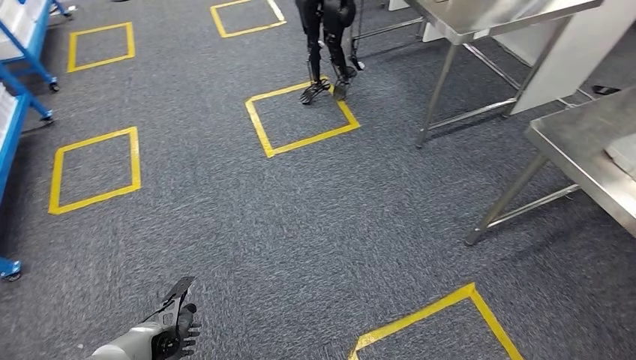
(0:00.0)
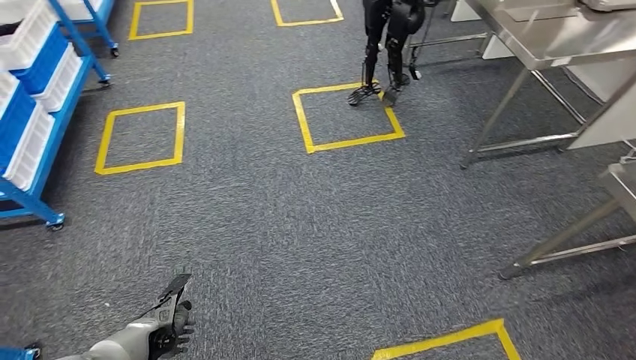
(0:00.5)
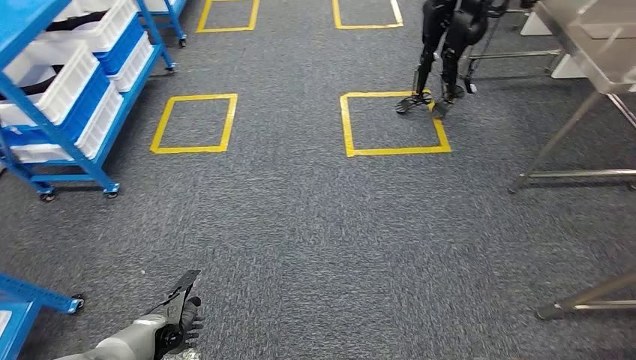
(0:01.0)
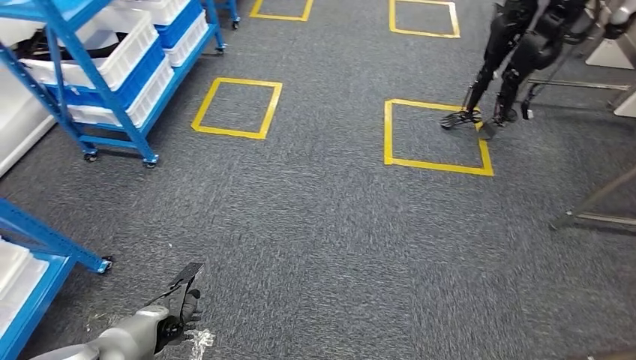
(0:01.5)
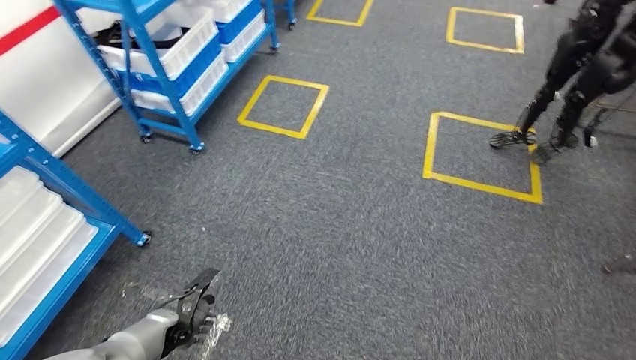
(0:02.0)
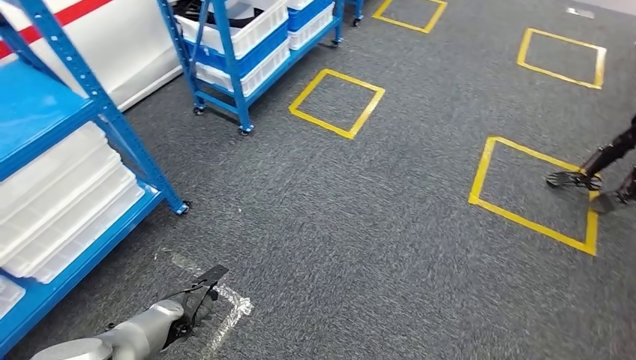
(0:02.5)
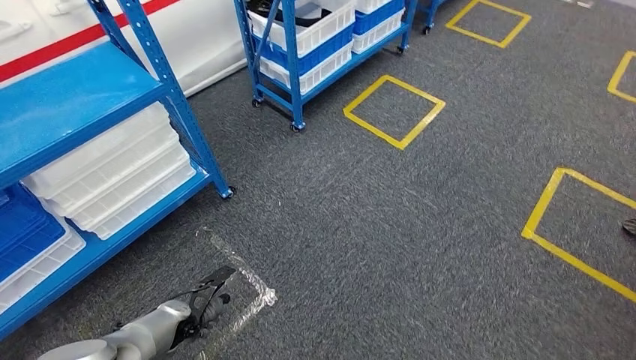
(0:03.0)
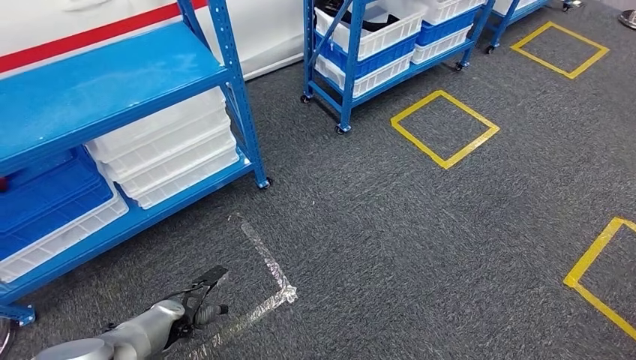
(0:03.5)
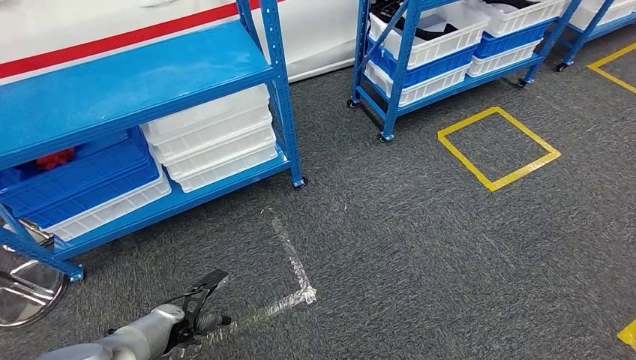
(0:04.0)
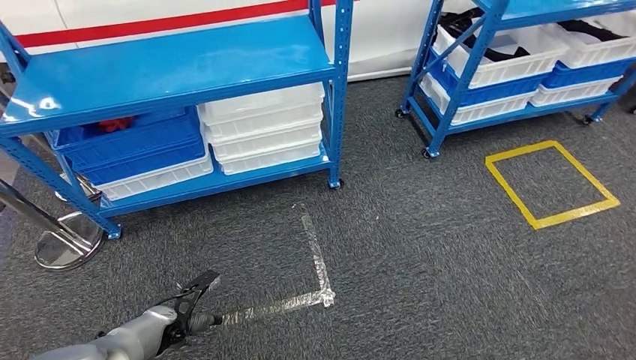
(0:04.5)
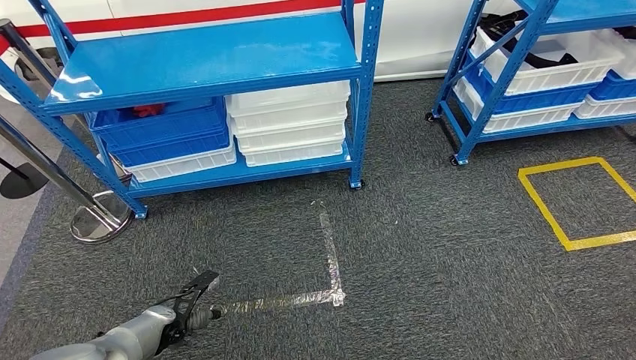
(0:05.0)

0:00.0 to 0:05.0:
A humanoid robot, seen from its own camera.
Step, 0:00.0 to 0:05.0: Return to the initial position at the shelf.

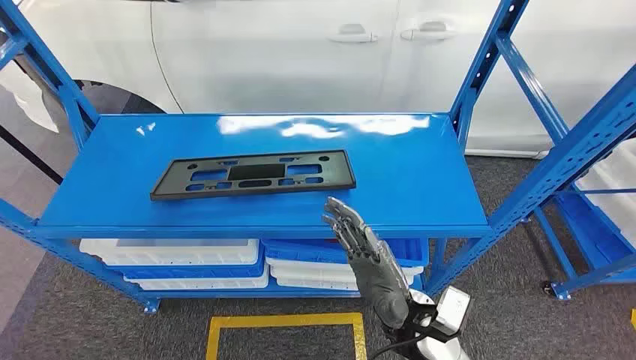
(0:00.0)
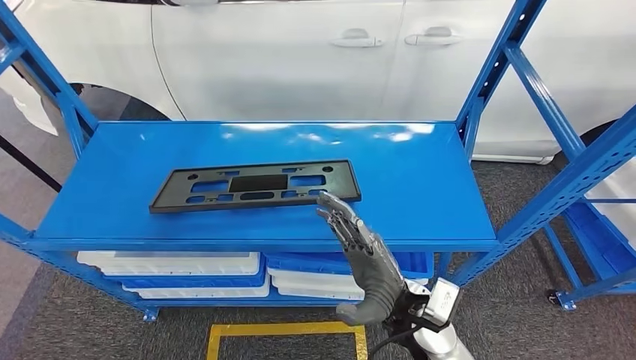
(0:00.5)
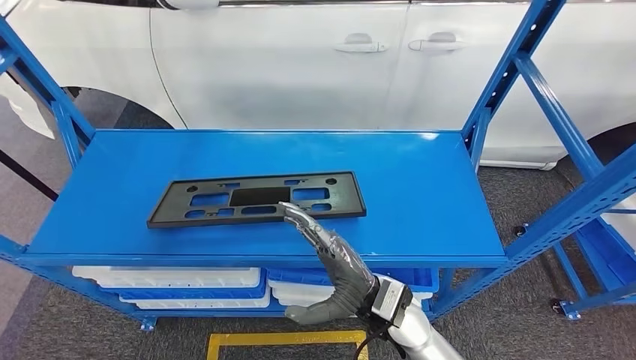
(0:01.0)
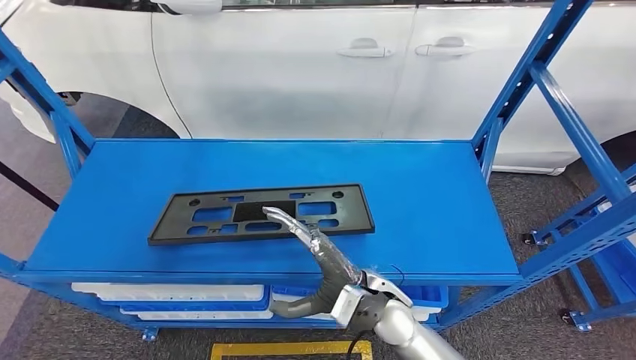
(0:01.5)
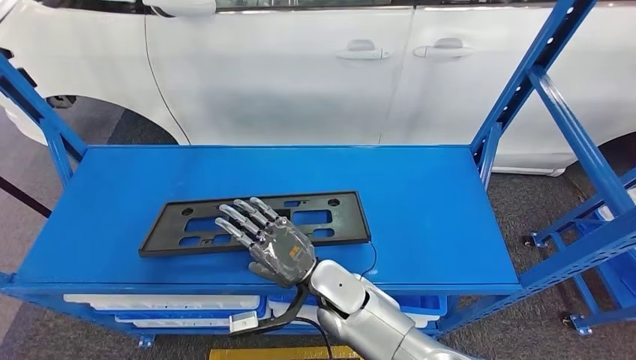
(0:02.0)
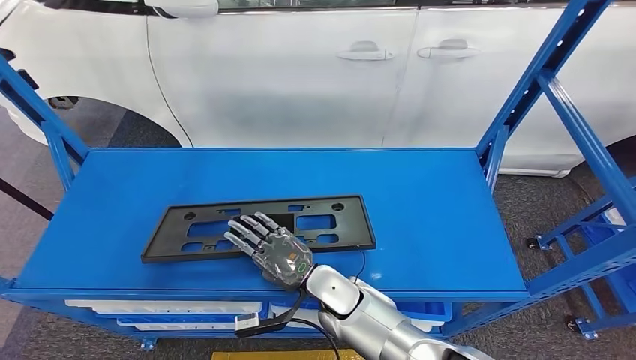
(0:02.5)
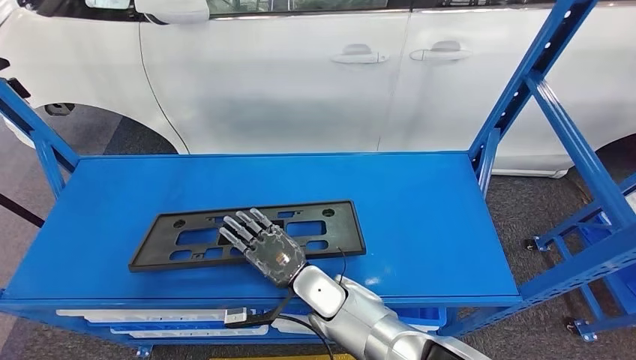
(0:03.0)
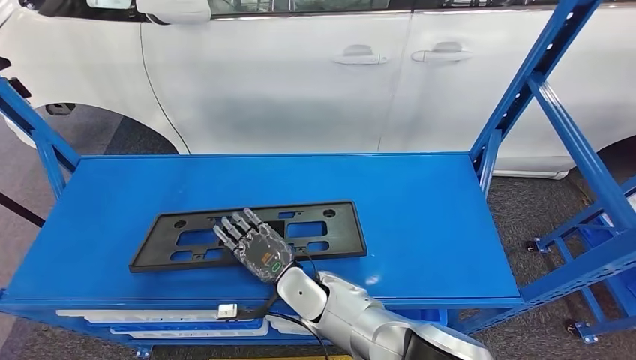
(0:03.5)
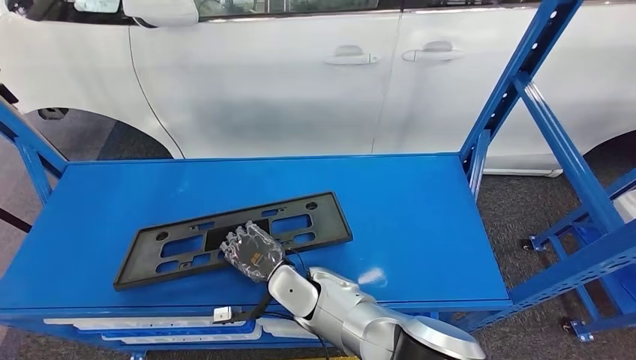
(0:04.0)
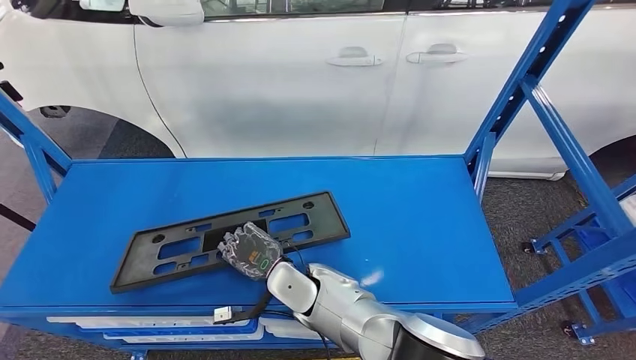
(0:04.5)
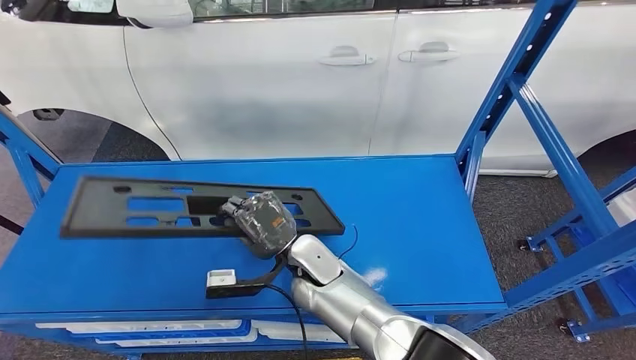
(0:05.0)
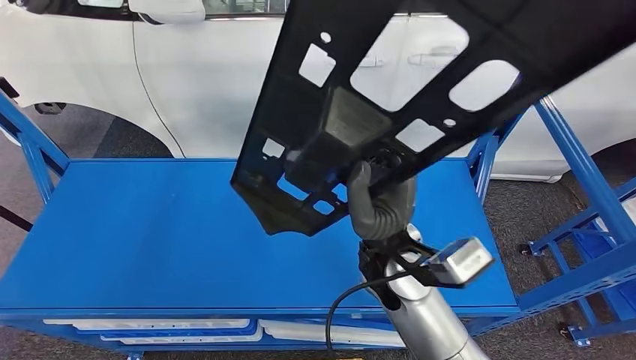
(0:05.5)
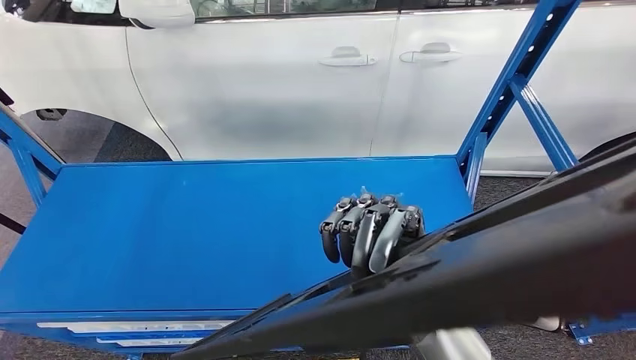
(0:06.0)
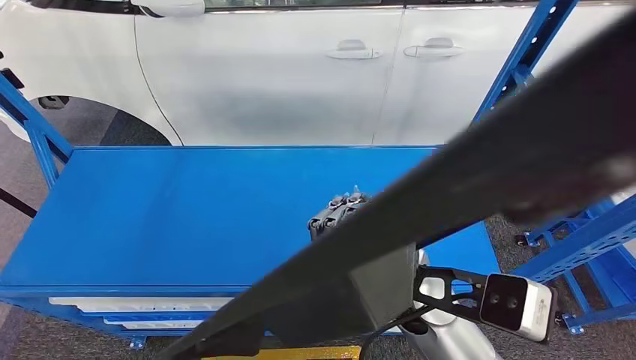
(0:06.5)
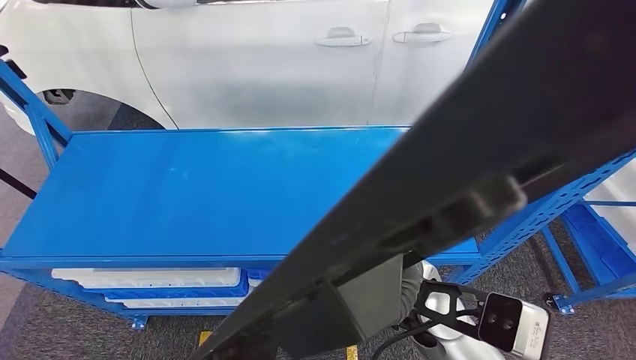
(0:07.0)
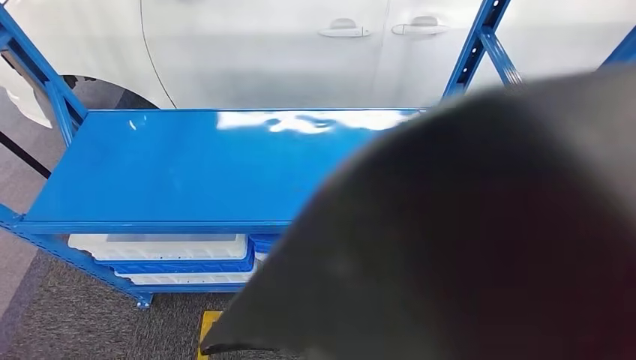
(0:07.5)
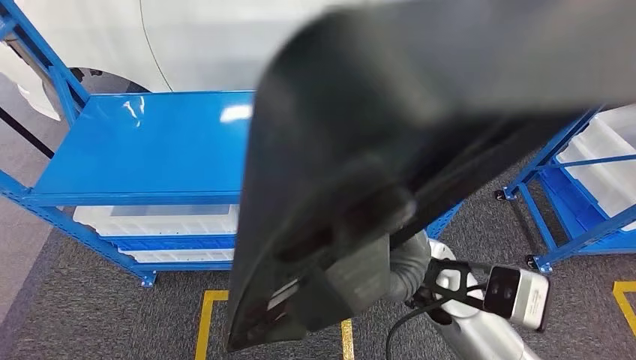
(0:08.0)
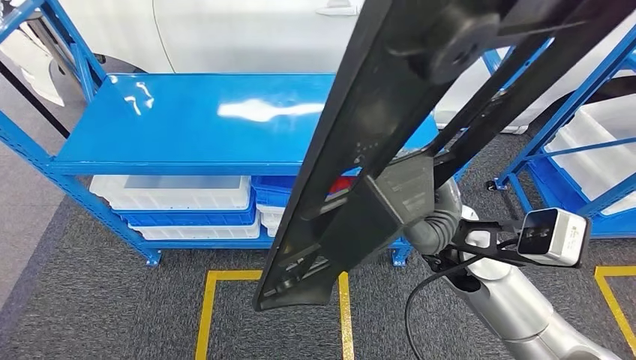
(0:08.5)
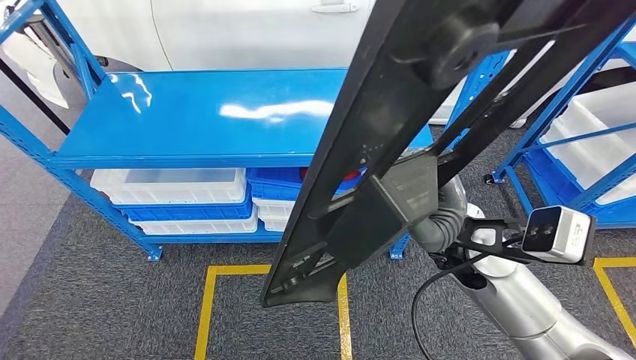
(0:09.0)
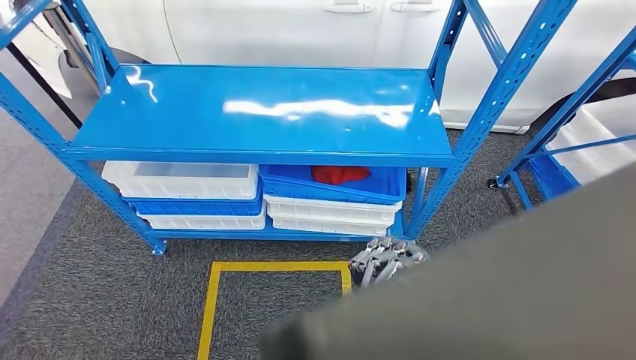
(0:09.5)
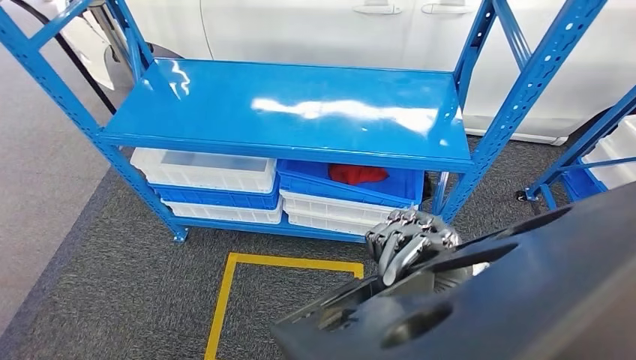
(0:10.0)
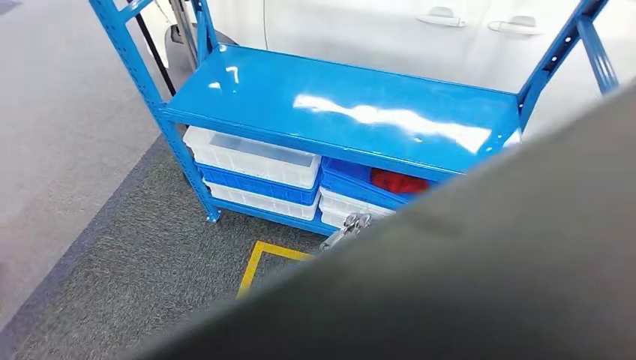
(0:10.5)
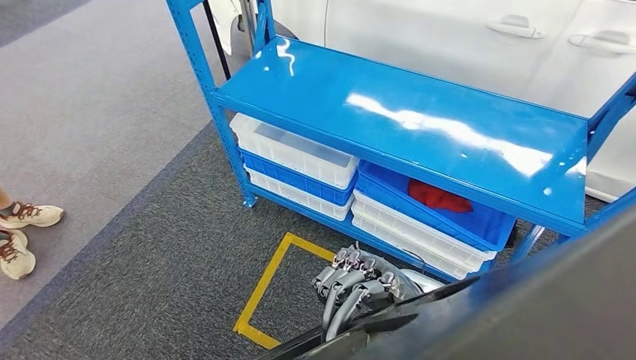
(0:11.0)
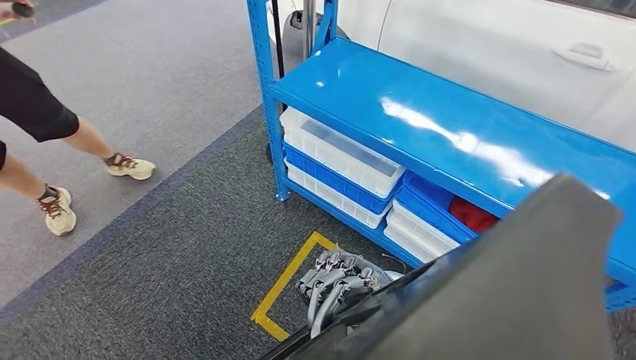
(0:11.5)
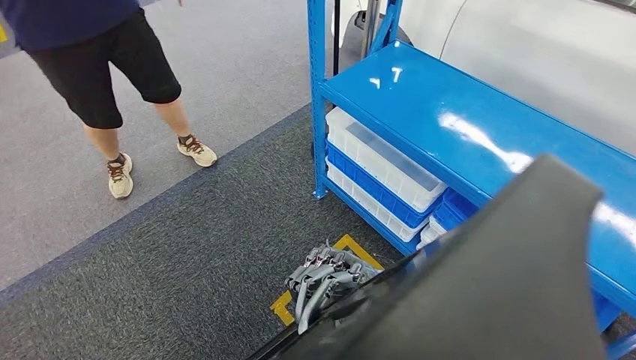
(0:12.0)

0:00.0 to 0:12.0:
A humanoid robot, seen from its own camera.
Step, 0:00.0 to 0:05.0: Pick up the large material from the shelf.

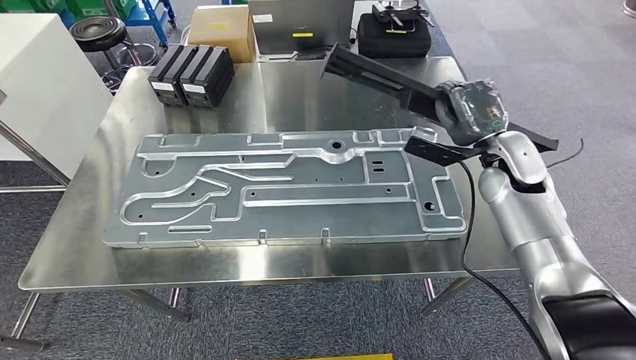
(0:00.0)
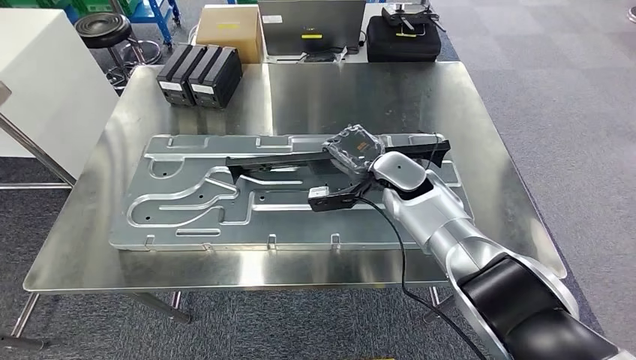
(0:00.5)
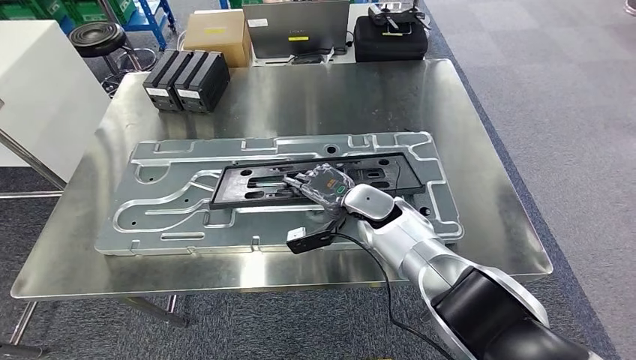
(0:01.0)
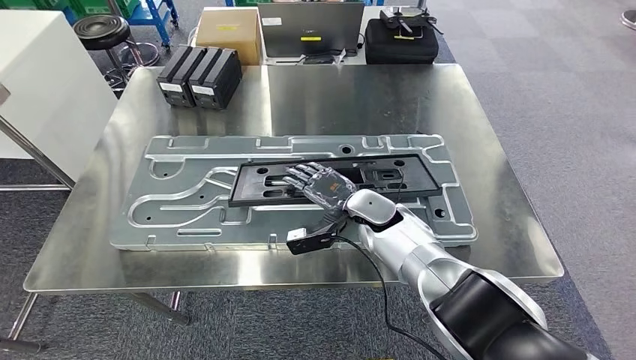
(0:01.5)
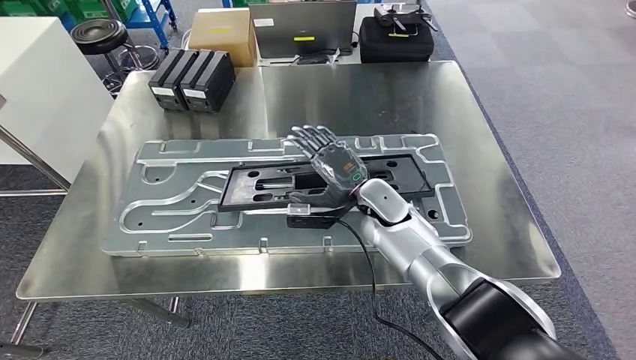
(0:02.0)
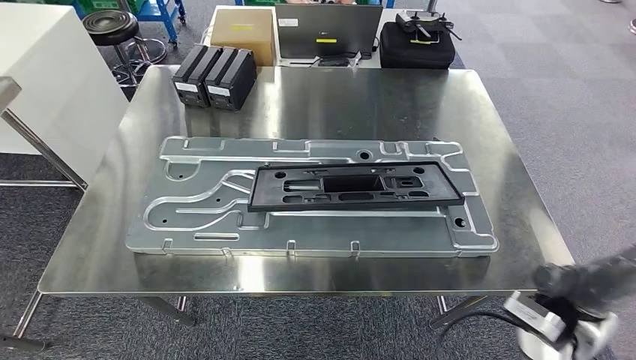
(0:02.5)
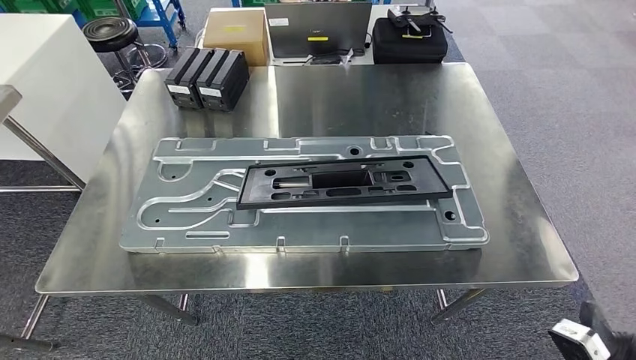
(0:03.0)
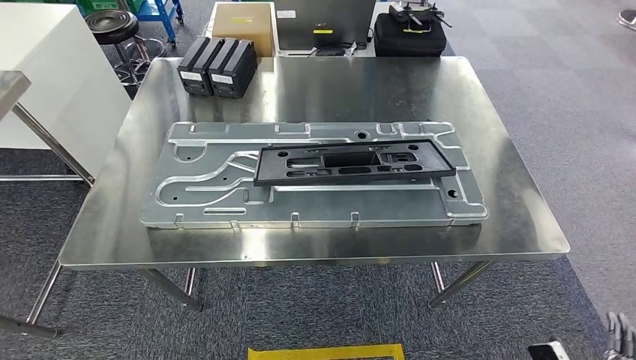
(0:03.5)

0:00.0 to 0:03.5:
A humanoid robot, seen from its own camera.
Step, 0:00.5 to 0:02.5: Insert the large material into the corresponding slot on the workbench.
